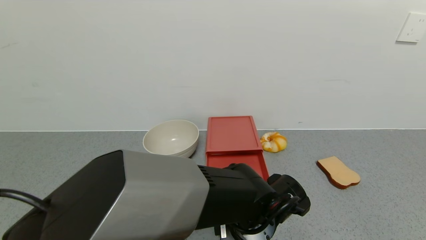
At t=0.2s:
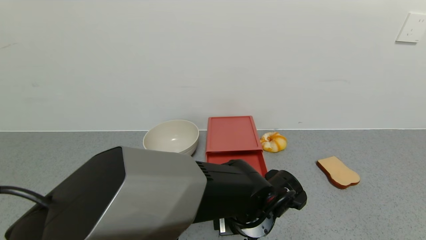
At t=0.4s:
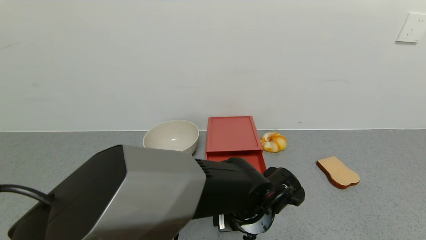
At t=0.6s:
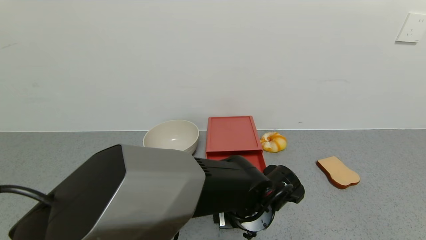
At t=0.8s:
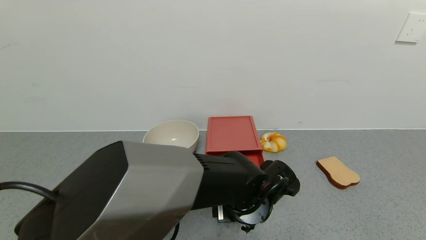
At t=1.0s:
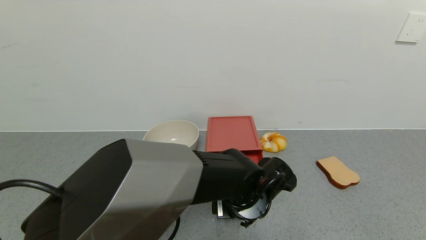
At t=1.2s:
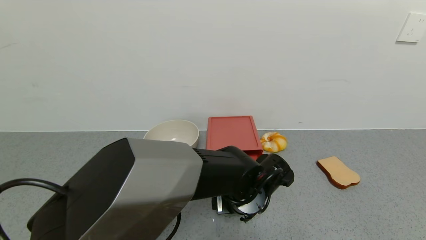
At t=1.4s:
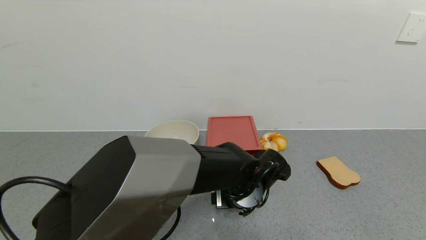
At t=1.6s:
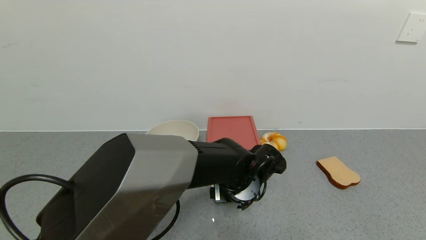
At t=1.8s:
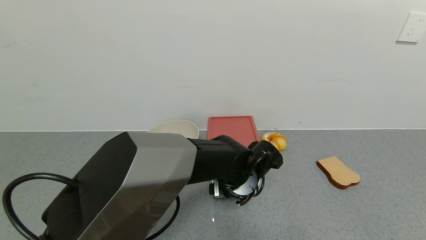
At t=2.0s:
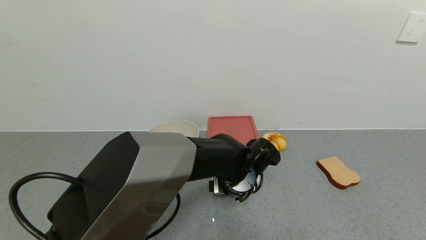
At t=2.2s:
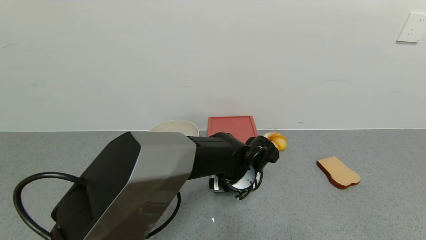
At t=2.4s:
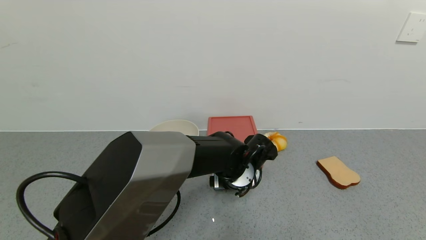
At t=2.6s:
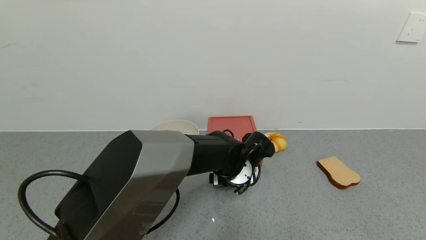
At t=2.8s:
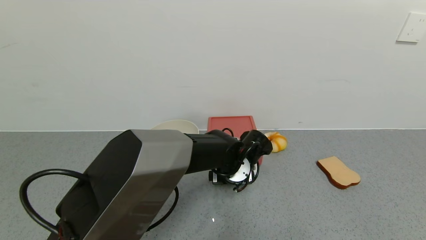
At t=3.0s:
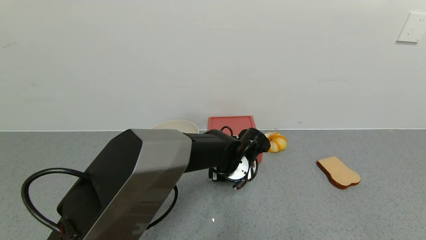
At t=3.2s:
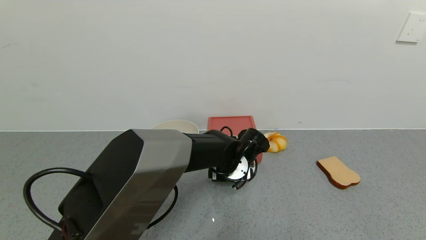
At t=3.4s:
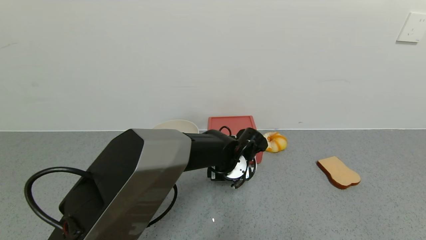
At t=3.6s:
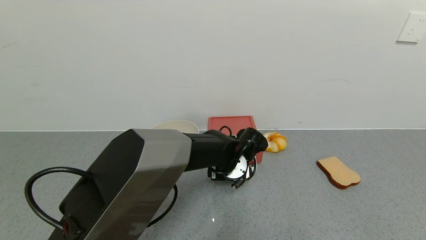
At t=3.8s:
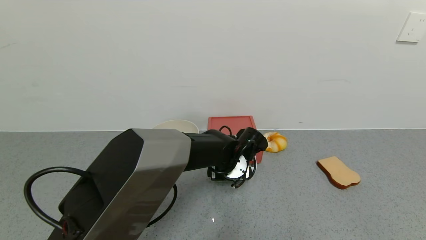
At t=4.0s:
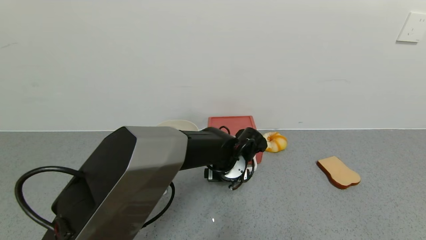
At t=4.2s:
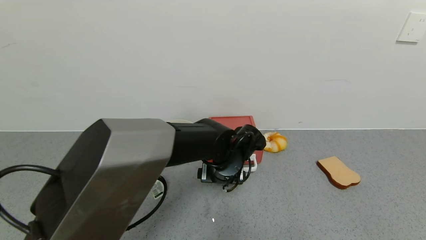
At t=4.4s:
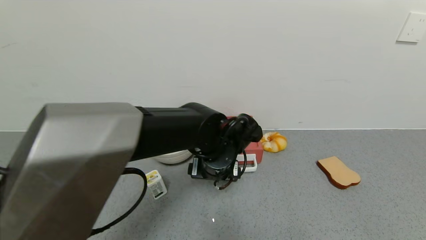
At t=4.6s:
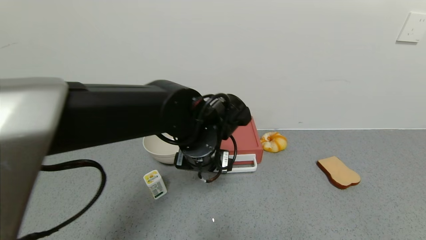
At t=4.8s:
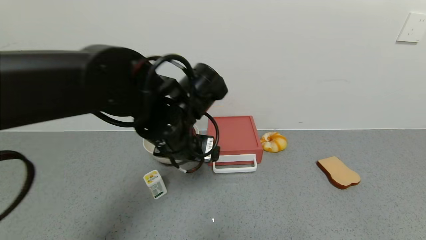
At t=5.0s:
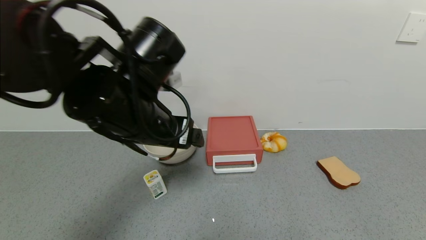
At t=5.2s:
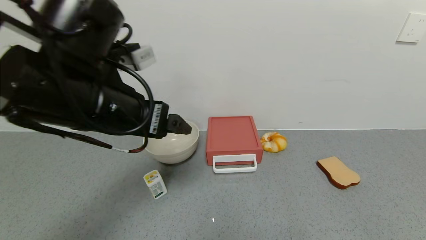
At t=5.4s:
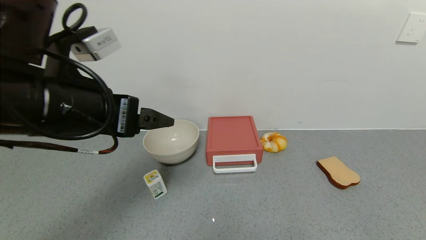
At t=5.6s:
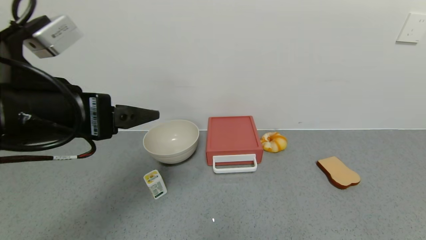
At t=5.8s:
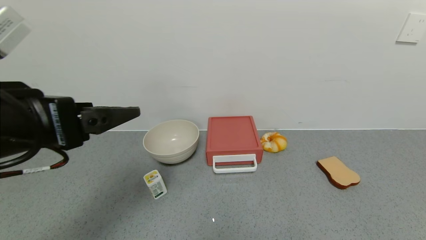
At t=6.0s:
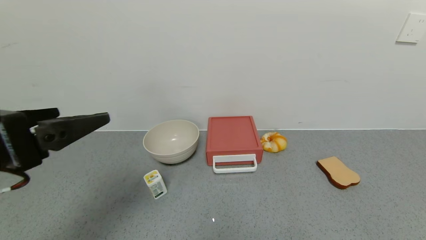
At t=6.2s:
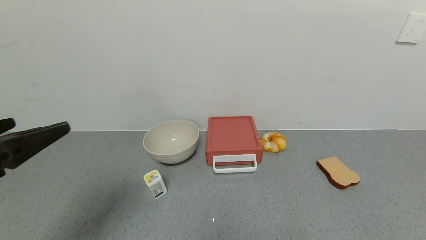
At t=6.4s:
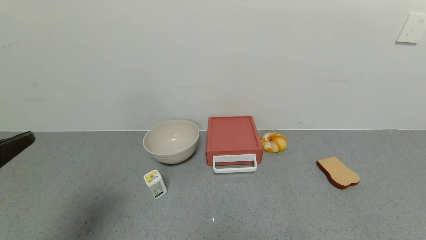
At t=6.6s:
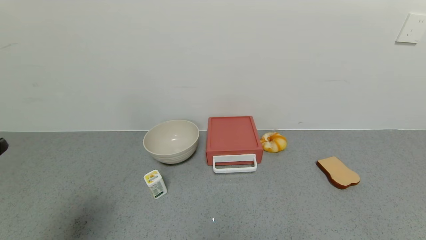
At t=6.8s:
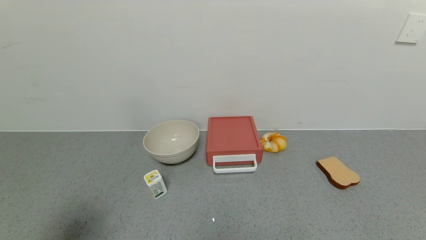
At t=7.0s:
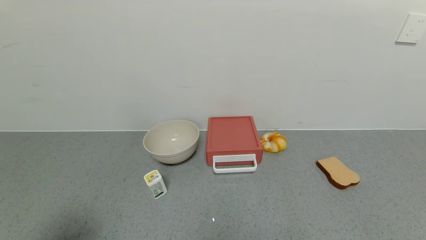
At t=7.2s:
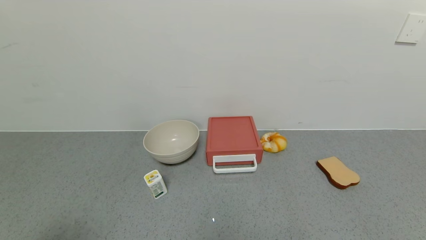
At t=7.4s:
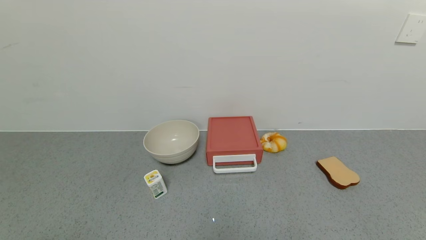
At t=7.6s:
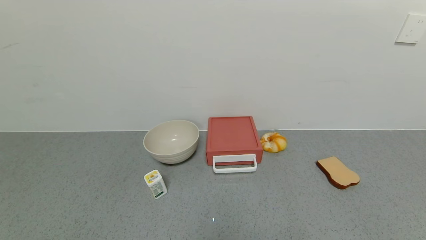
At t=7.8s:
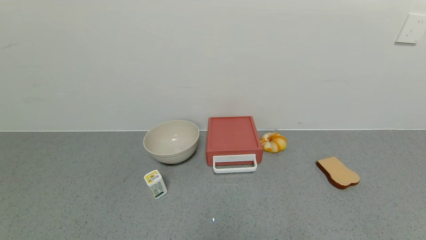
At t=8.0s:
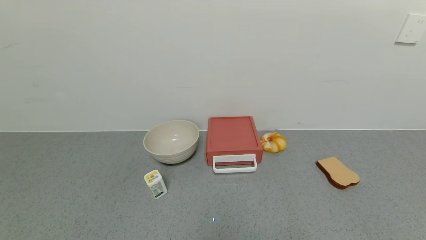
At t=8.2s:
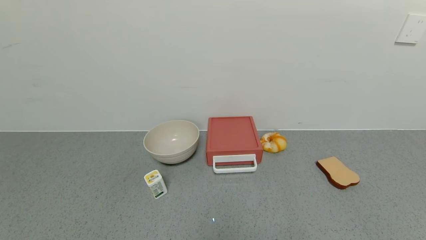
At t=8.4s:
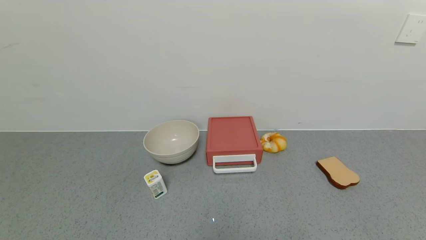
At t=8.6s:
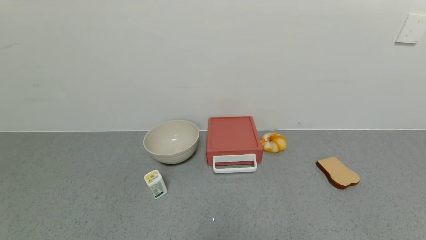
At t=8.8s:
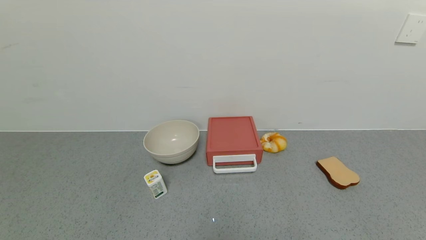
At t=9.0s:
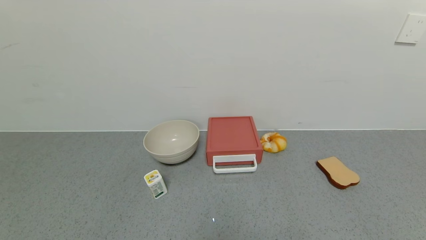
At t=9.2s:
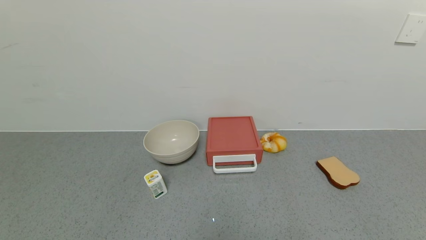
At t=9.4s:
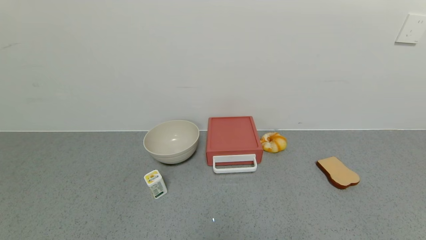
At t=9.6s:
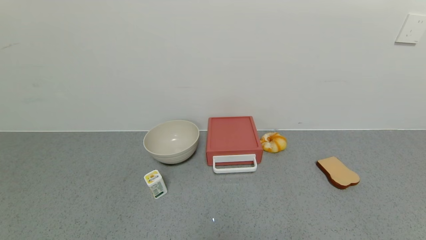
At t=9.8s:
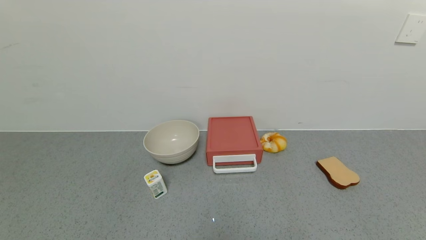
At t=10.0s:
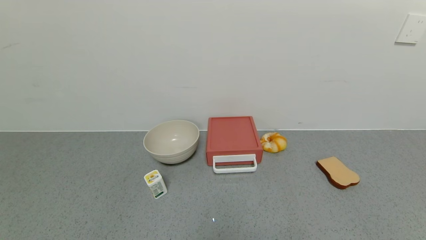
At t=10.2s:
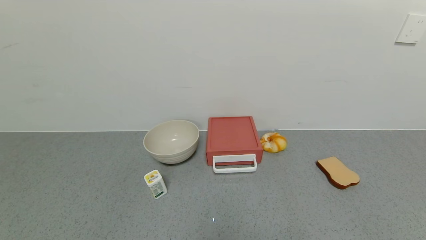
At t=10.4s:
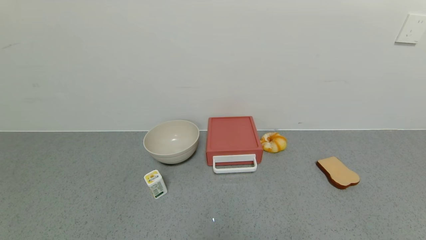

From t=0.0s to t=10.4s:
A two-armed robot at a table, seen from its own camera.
Task of the whole recording: use the gripper to open the drawer and close the red drawer.
Step, from t=0.0s to t=4.4s: Close the red drawer with the left gripper.
From t=0.0s to t=1.4s: The left gripper is displaced forward by some 5 cm.
From t=1.4s to t=3.0s: The left gripper is displaced forward by about 5 cm.
From t=3.0s to t=4.4s: The left gripper moves upward, about 5 cm.
From t=4.4s to t=6.0s: The left gripper is displaced to the left, backward and upward by about 35 cm.
From t=6.0s to t=7.4s: The left gripper travels backward, downward and to the left by about 20 cm.

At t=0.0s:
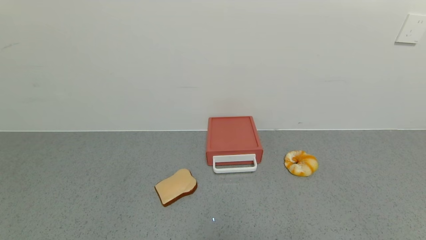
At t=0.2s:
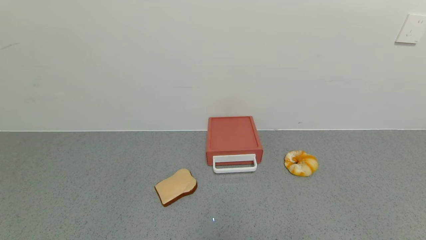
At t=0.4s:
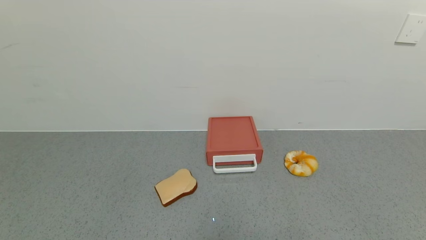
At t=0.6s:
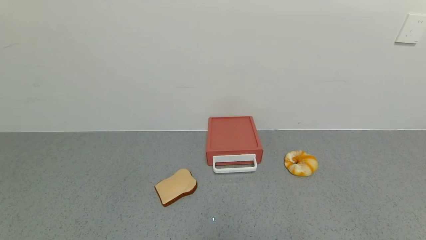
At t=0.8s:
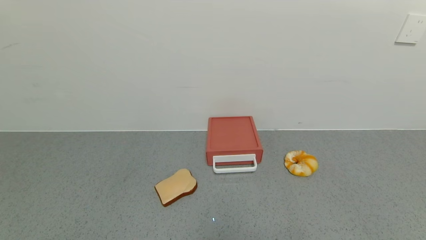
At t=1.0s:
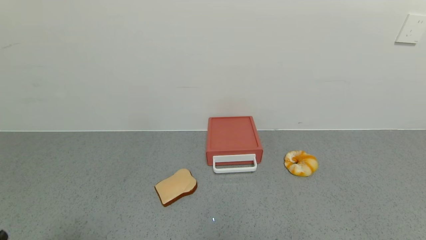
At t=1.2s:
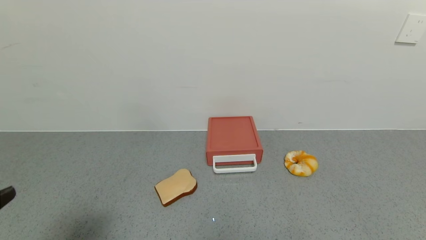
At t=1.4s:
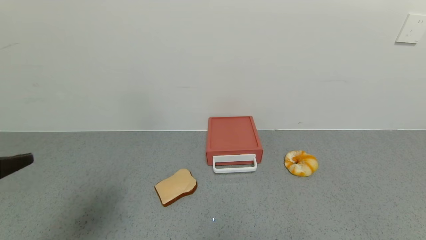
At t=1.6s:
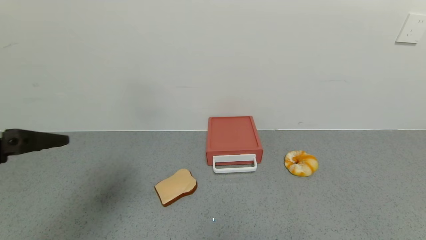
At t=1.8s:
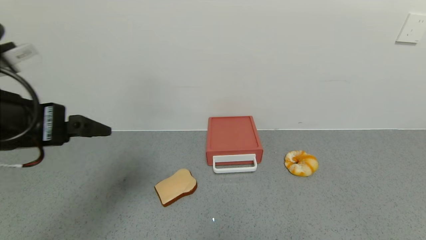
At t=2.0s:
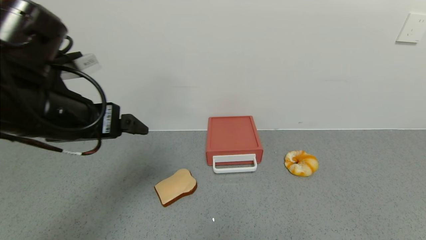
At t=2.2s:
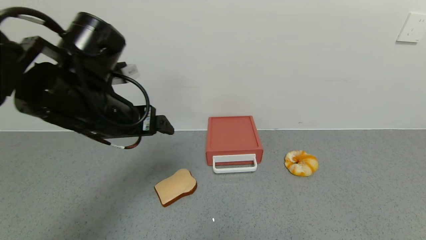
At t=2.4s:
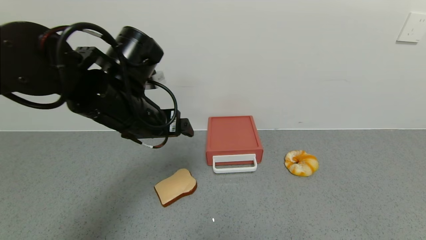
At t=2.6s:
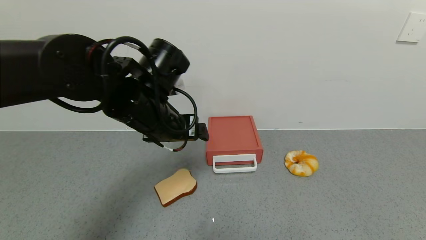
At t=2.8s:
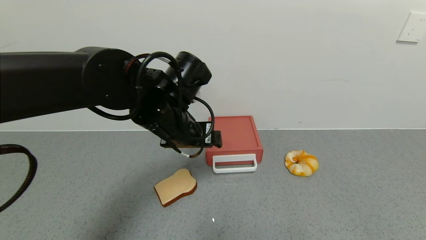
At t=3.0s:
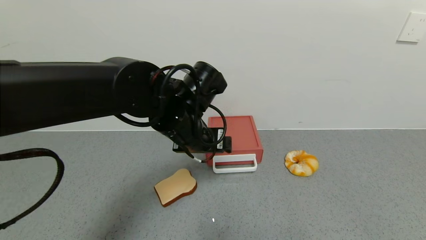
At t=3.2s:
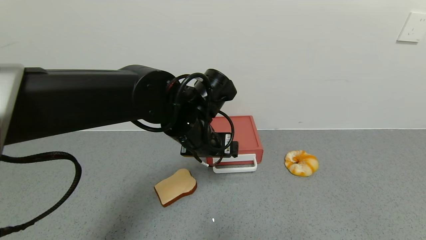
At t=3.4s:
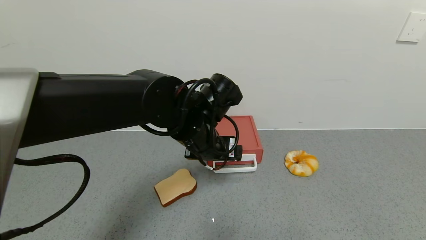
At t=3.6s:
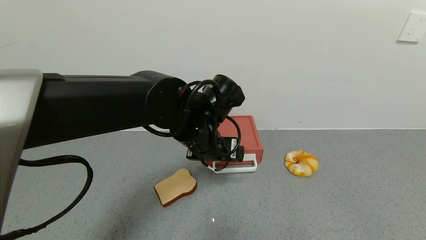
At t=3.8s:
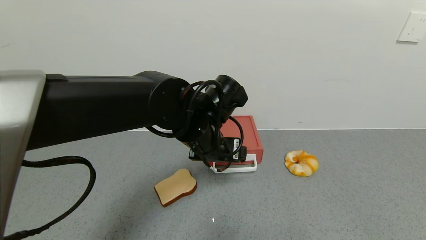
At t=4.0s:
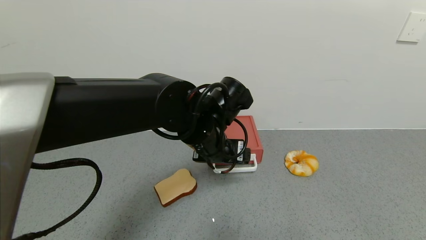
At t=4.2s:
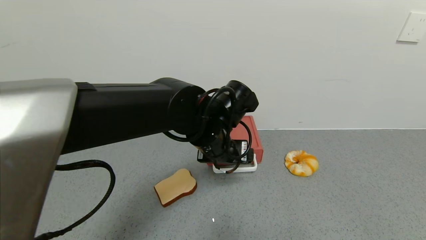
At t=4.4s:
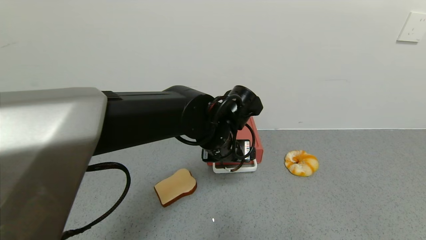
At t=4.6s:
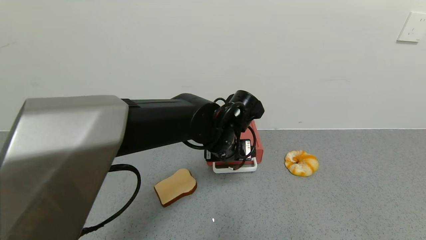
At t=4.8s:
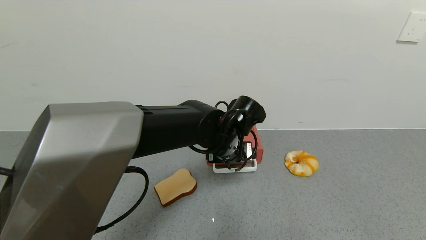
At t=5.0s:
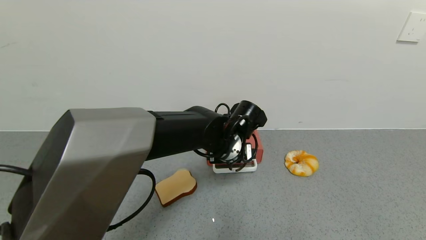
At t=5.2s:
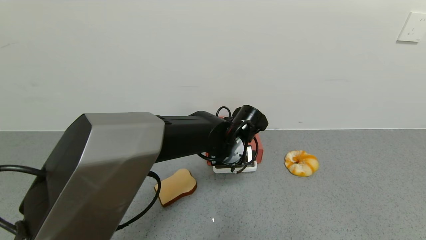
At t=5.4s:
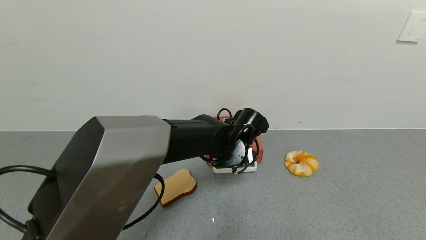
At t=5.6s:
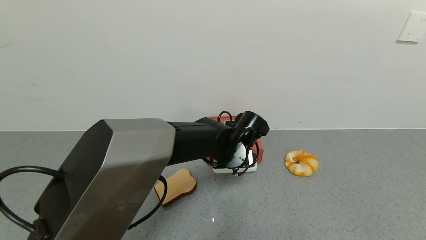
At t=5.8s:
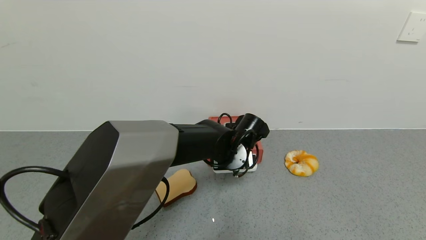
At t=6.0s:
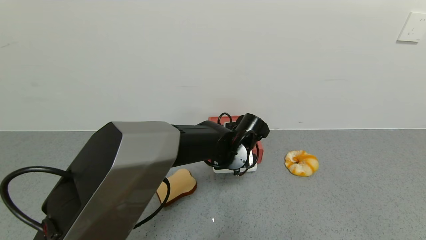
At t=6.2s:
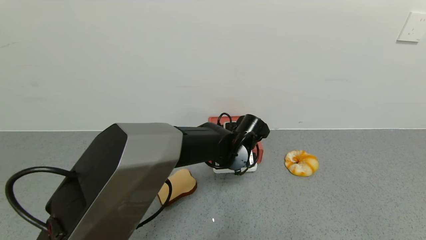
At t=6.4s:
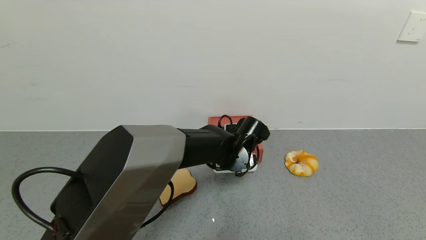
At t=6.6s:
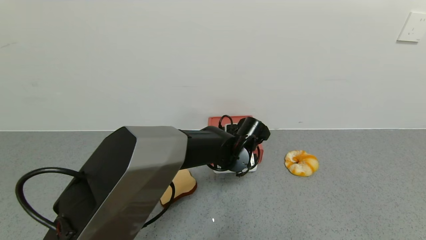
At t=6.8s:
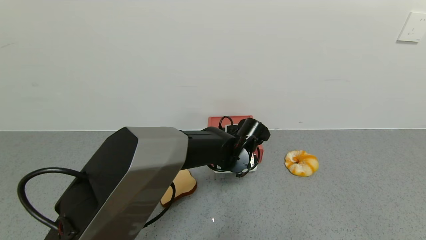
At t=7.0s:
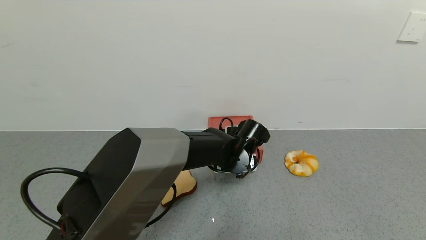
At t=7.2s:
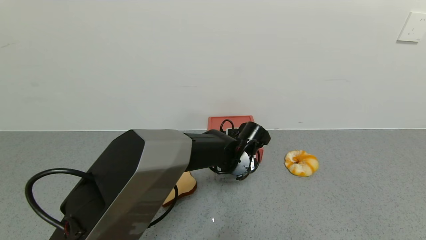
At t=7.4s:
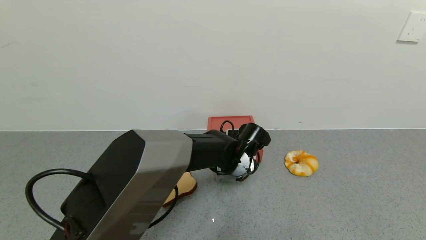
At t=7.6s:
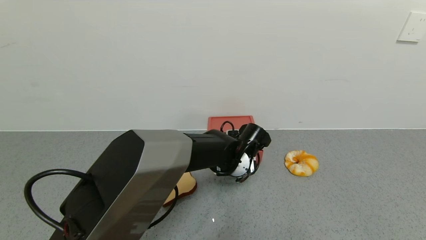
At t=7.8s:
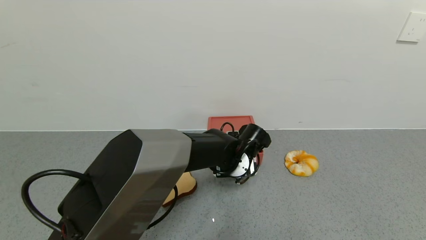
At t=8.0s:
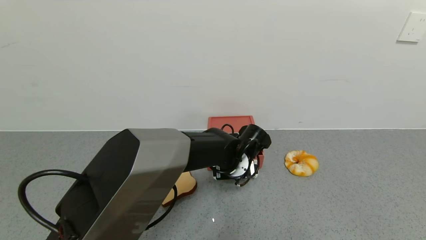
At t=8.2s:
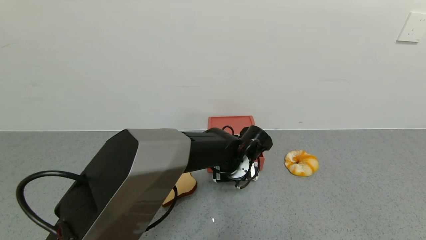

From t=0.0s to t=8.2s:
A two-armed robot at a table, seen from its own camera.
Task of the whole recording: use the gripper to open the drawer and close the red drawer.
From t=0.0s to t=1.6s: The left gripper is displaced upward and forward by some 30 cm.
From t=1.6s to t=3.2s: The left gripper goes approximately 30 cm to the right, forward and downward.
From t=3.2s to t=5.0s: The left gripper travels downward and to the right by approximately 10 cm.
From t=5.0s to t=6.6s: The left gripper ends up some 5 cm from where it was.
From t=6.6s to t=8.2s: The grippers move only a little.
